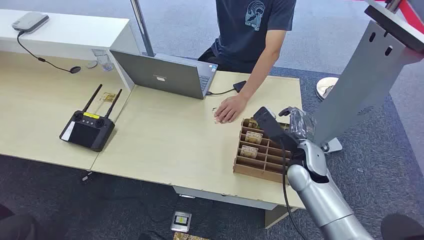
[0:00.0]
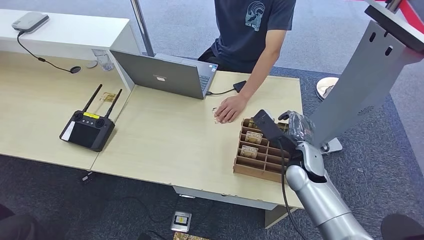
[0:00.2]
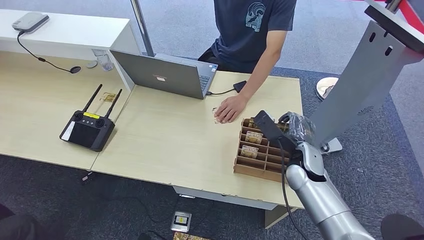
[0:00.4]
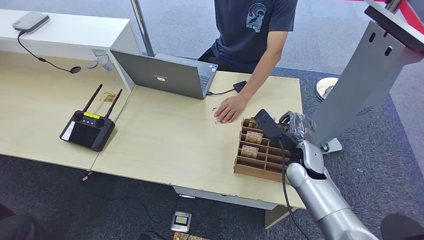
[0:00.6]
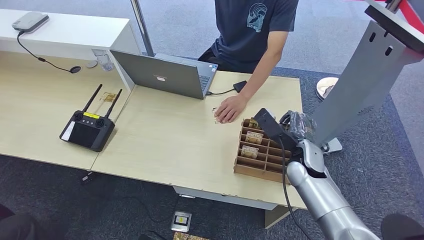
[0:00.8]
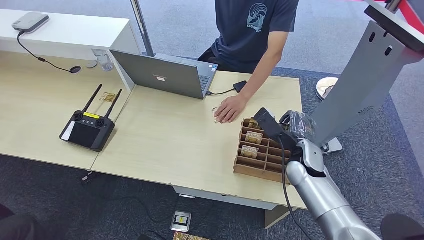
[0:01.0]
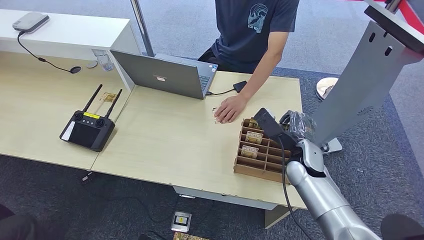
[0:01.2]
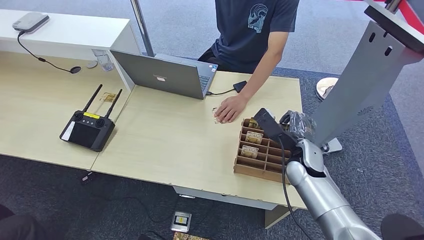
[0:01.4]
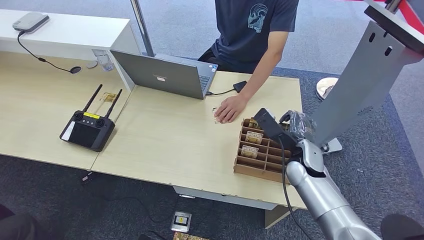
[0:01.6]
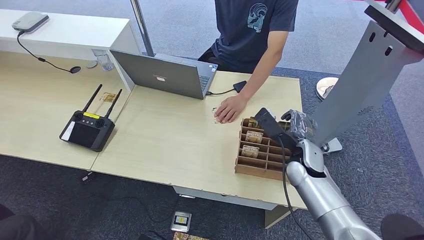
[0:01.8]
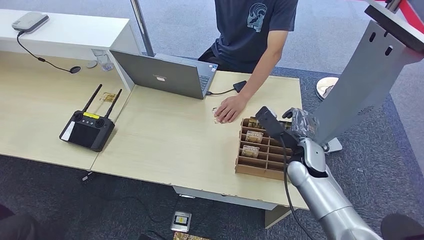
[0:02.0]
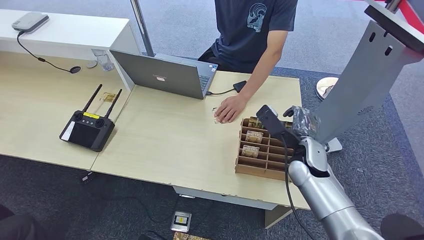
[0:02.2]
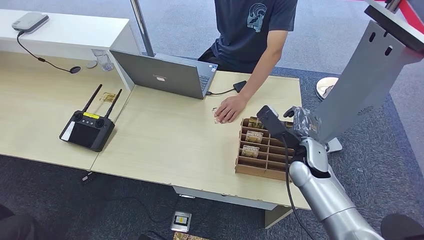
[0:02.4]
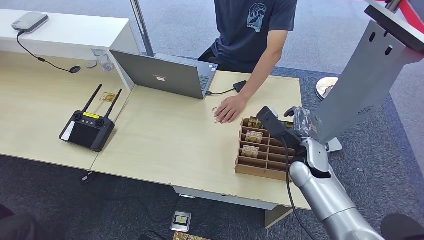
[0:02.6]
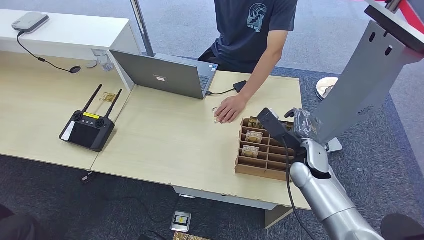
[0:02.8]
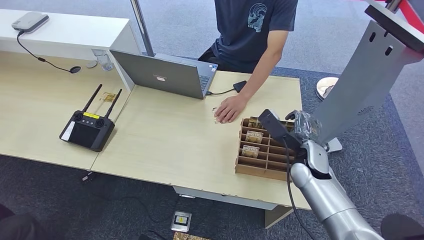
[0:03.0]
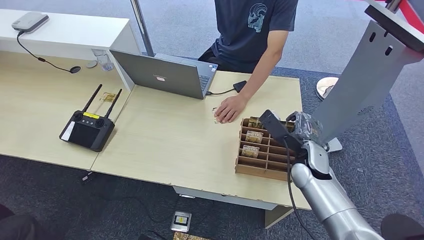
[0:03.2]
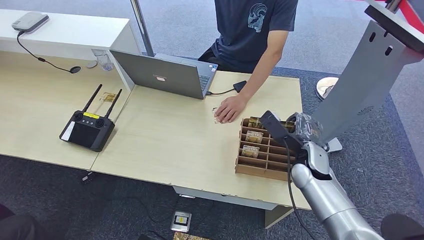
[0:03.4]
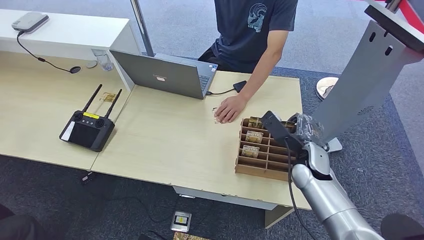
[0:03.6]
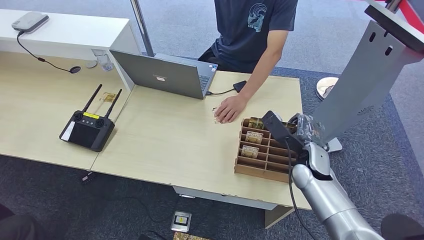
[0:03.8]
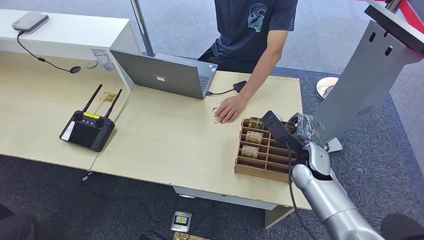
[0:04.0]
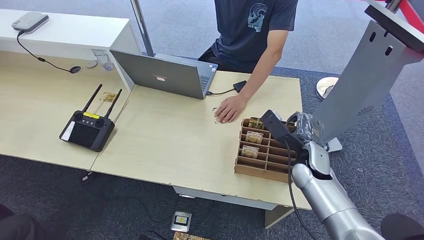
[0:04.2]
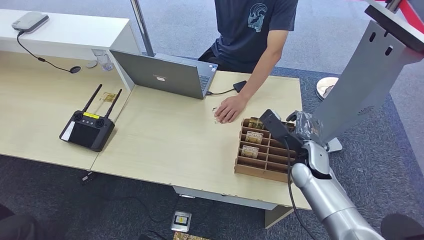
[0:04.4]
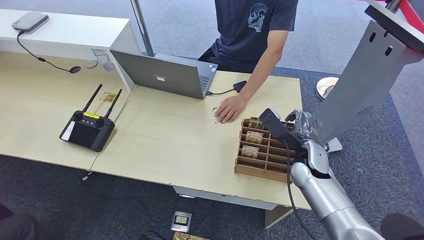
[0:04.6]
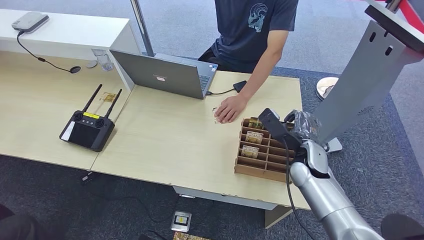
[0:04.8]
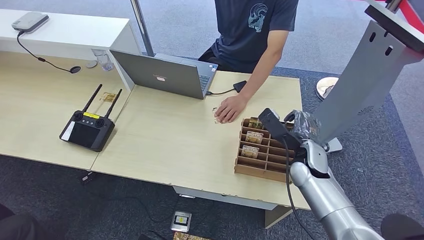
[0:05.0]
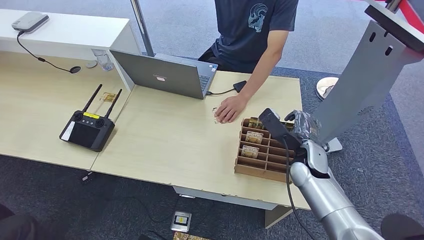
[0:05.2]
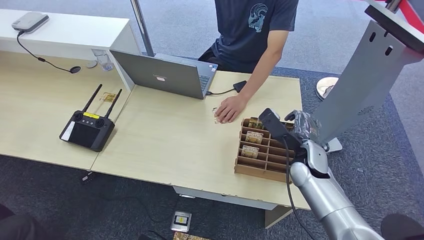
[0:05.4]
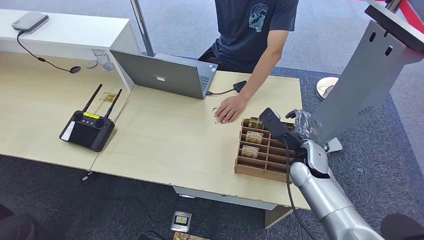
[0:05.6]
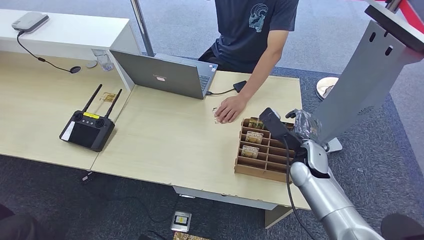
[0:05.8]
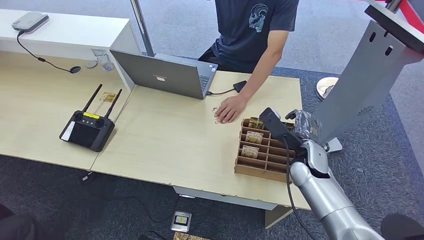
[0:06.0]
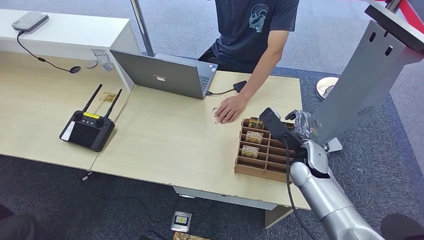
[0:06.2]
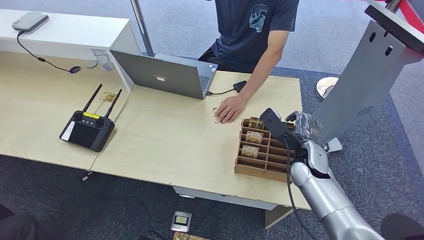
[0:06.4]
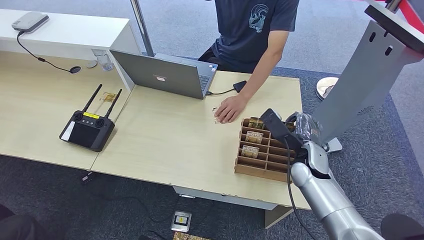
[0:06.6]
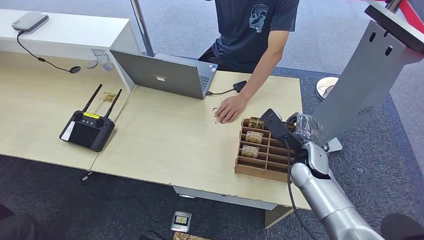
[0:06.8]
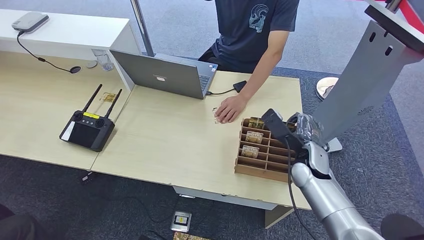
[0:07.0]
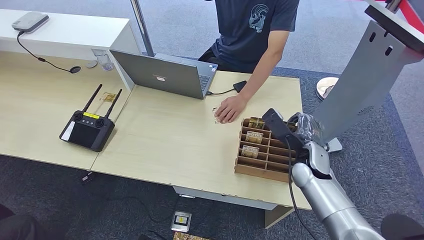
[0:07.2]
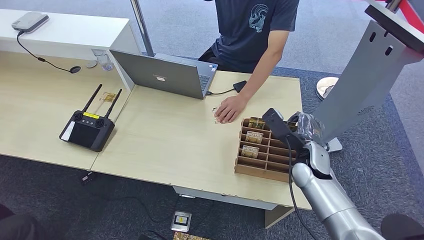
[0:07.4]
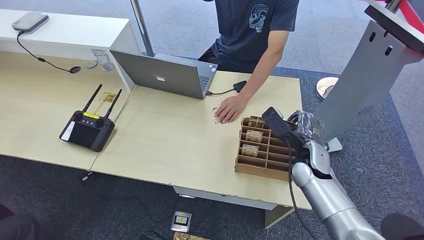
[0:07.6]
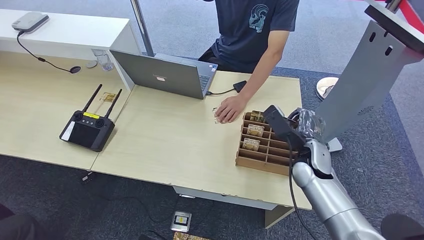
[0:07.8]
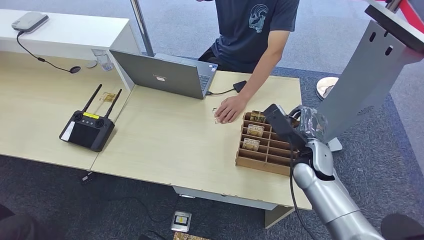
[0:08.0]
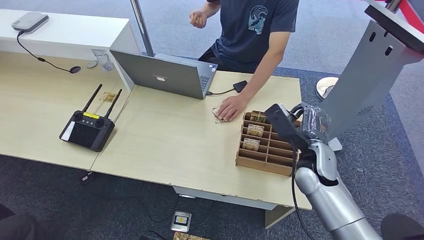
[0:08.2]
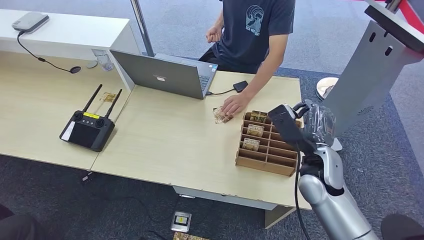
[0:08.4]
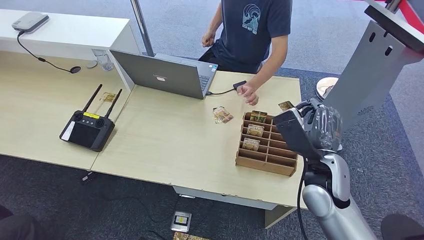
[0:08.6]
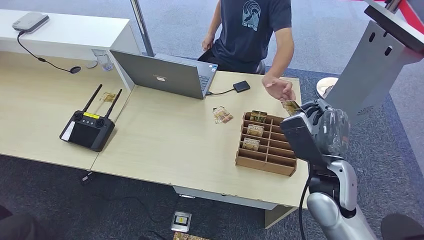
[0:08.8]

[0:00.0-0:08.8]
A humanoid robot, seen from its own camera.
Task of the whole recording: Pick up the card and hand it over to the target person.
Step, 0:00.0 to 0:08.2: Pick up the key card from the card box.
Step, 0:08.4 to 0:08.8: Hand the key card to the target.
0:01.4 to 0:03.0: The hands move only a little.
0:04.4 to 0:05.8: The two hands keep their place.
0:05.8 to 0:07.4: The hands make only small movements.
0:07.4 to 0:08.8: The right hand shifts about 10 cm backward and upward.
